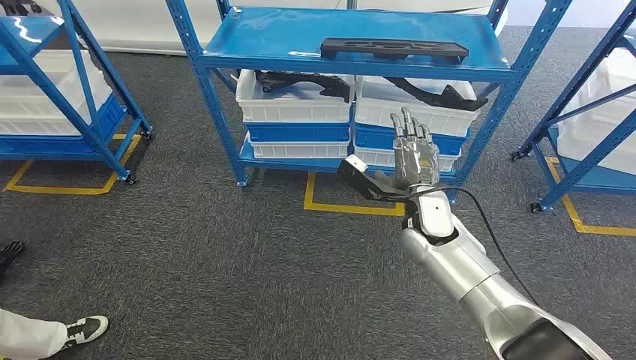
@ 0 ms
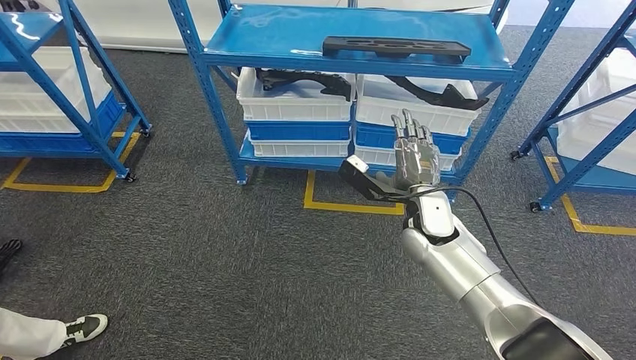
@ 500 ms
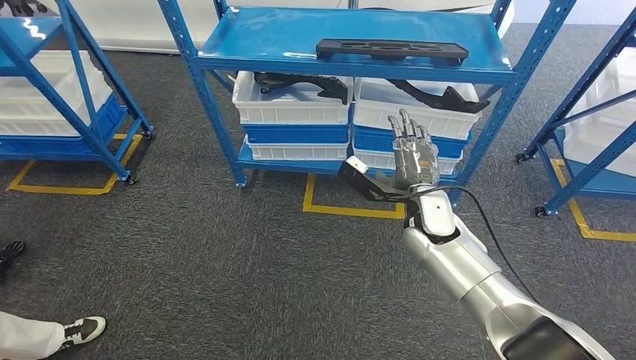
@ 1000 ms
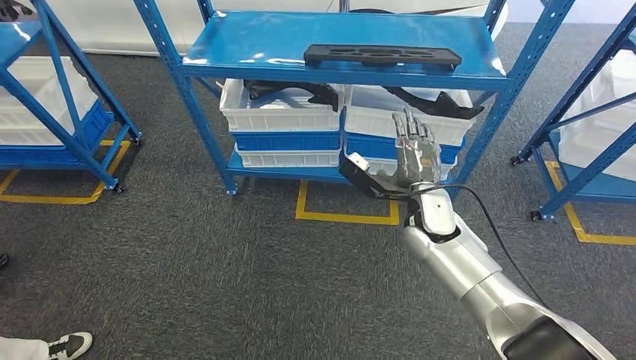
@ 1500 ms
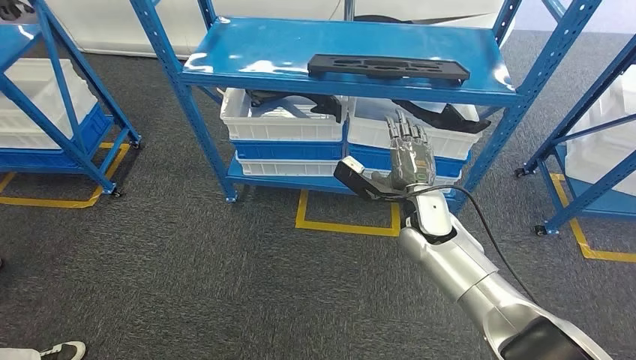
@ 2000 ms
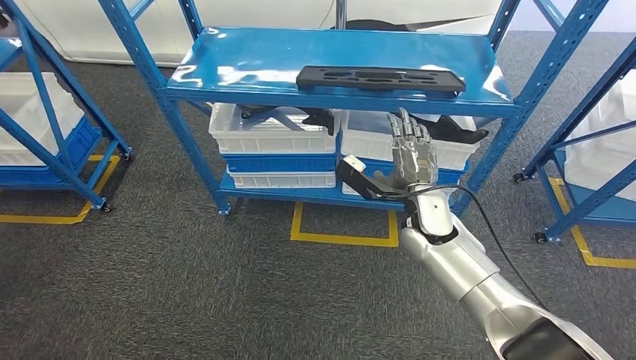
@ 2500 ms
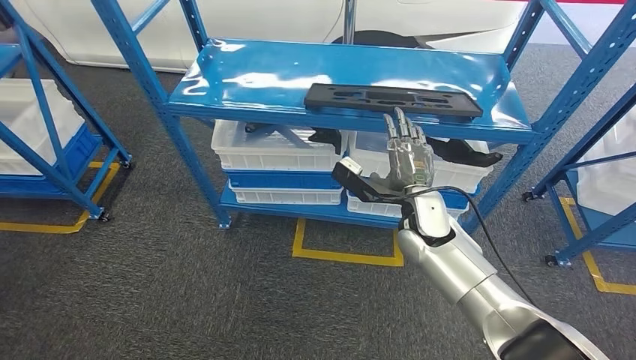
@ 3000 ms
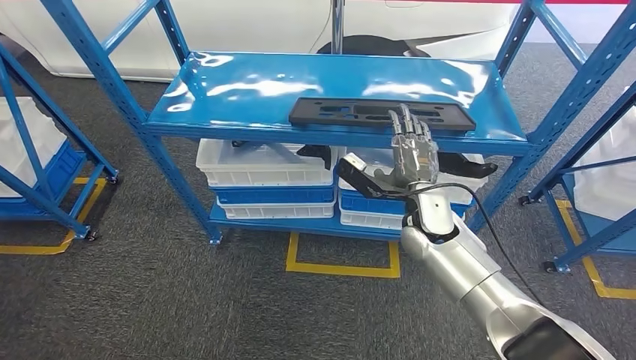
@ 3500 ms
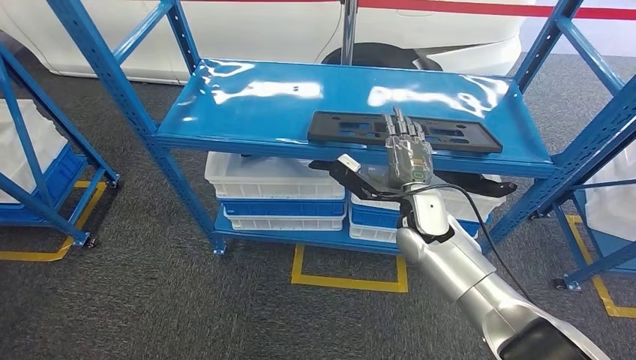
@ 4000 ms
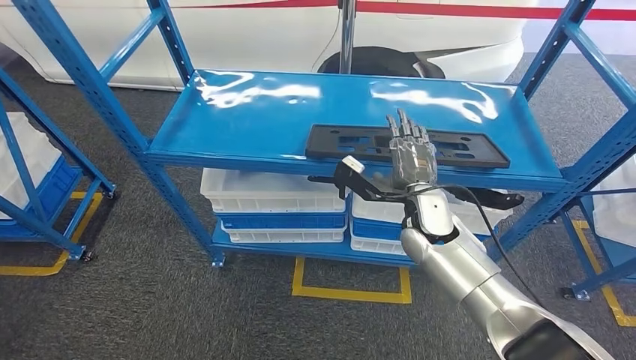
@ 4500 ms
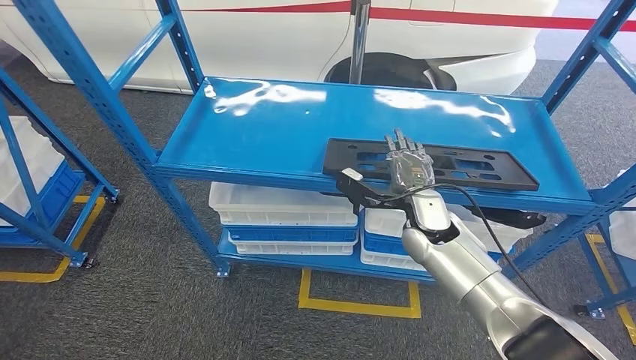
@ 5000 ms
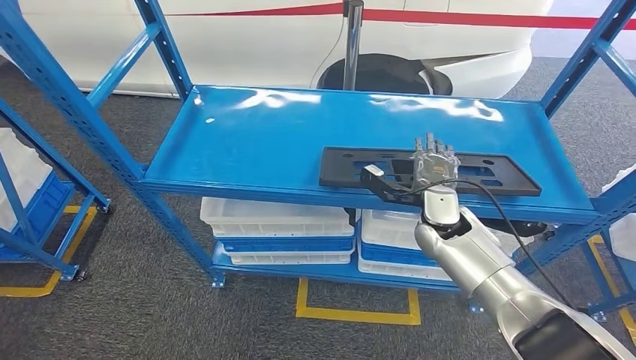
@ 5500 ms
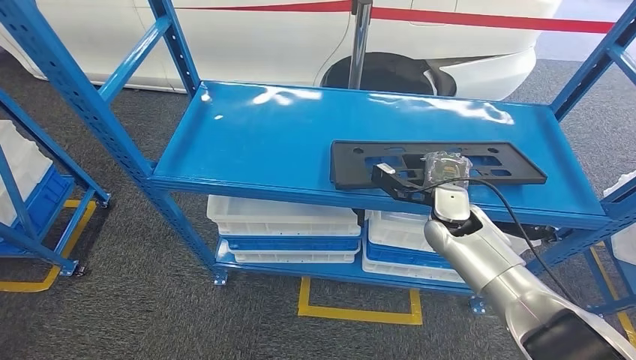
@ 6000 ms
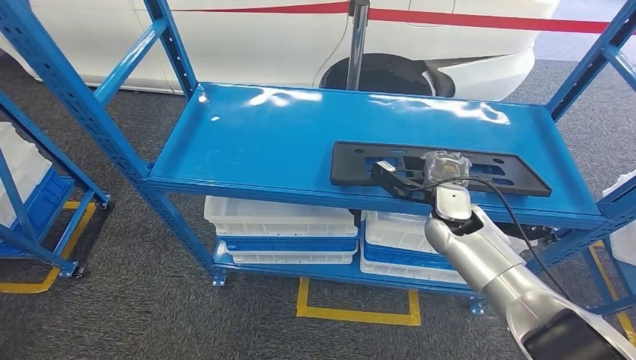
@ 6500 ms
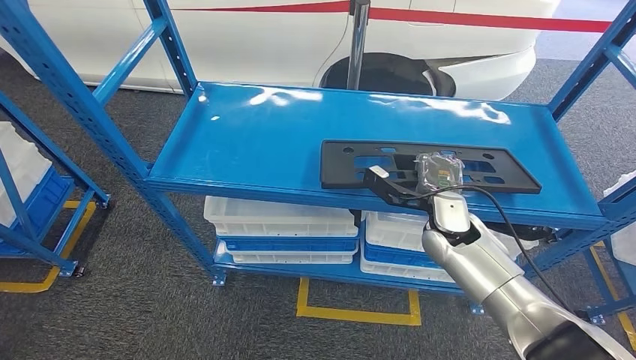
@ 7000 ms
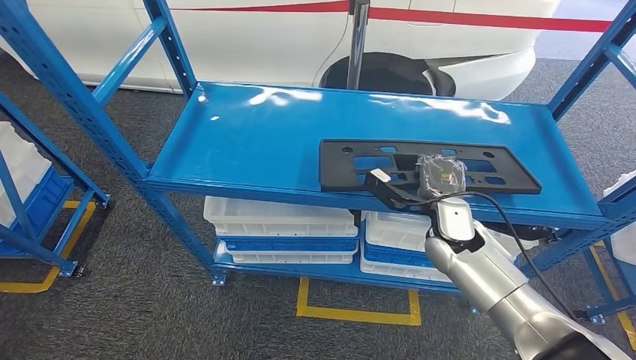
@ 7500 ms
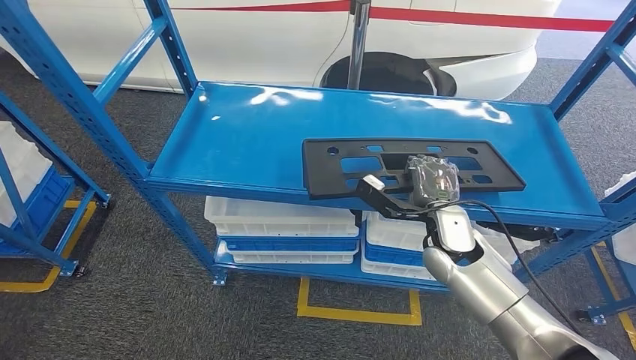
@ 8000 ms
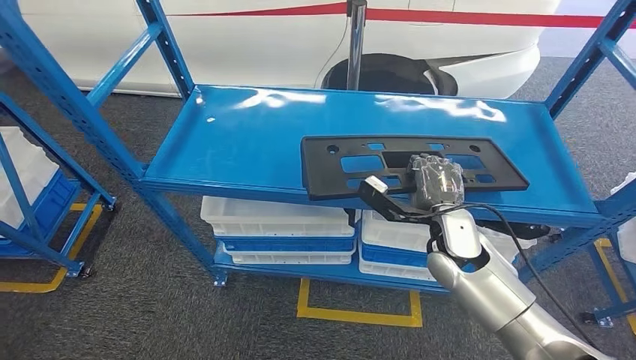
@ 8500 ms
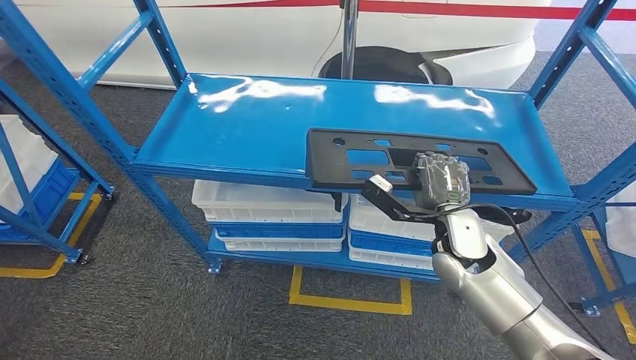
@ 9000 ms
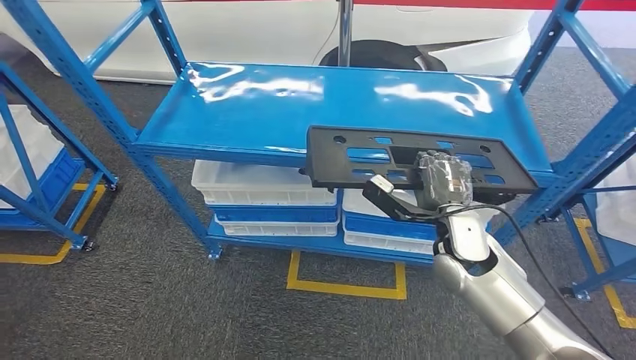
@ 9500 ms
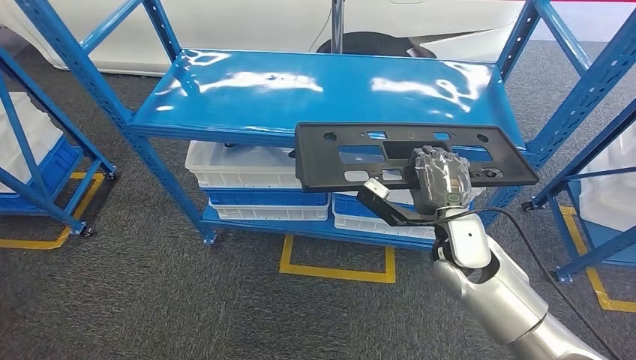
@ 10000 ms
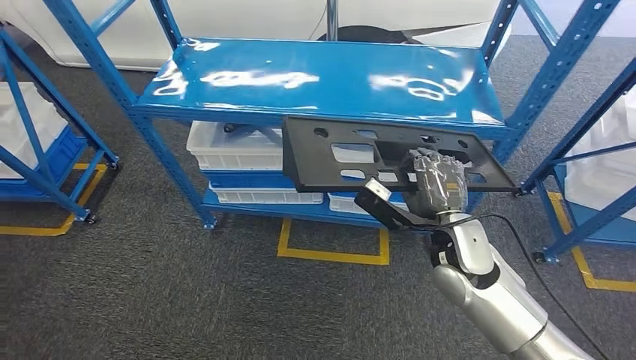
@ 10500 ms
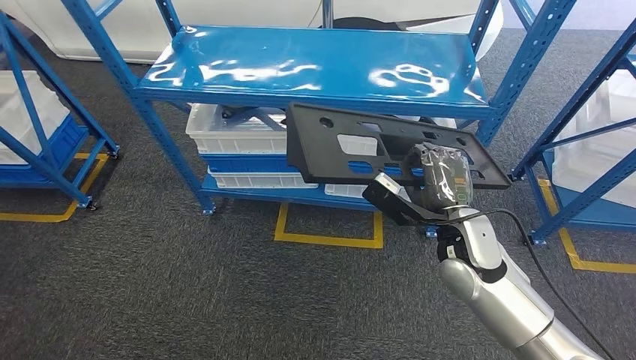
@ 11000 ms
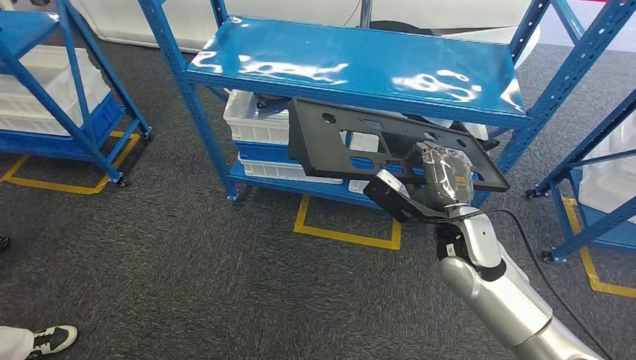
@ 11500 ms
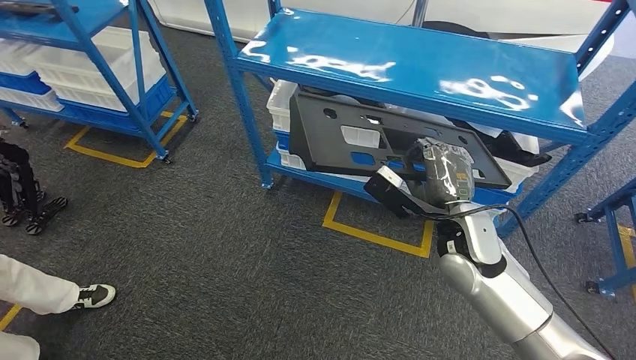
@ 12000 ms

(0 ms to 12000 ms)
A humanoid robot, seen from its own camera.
Step, 0 ms - 9500 ms: Pick up the large material from the shelf.

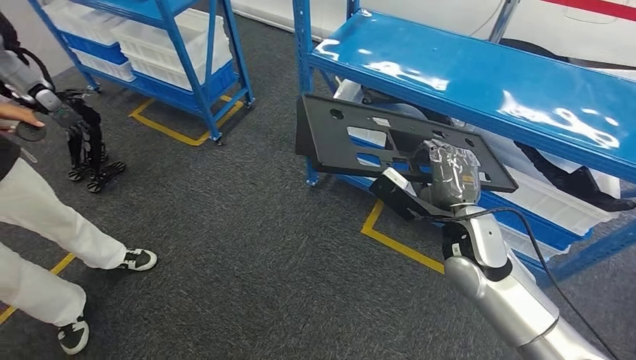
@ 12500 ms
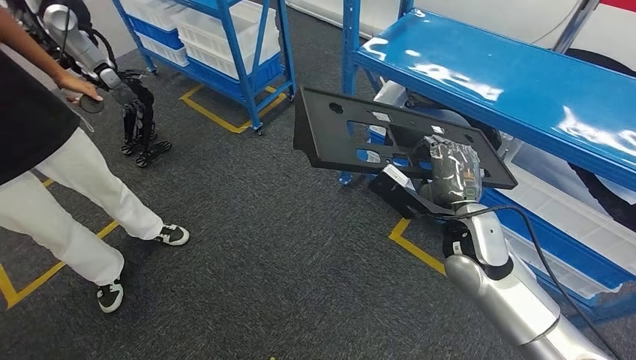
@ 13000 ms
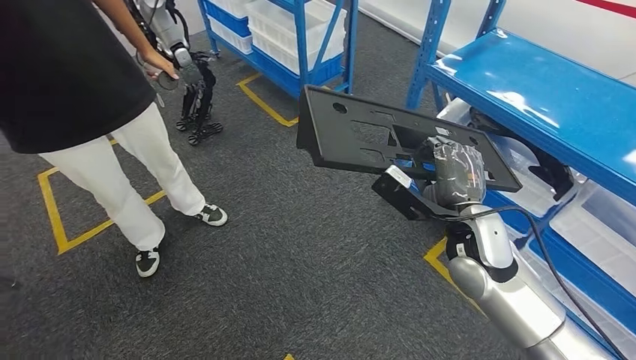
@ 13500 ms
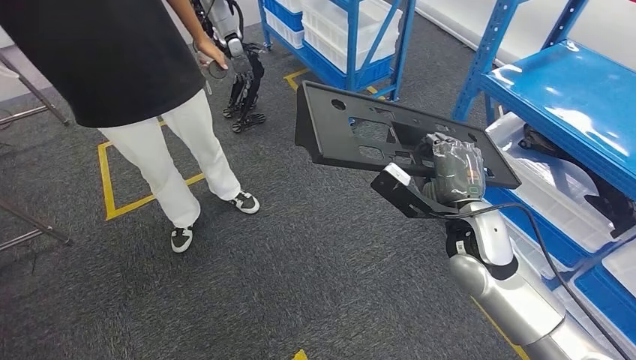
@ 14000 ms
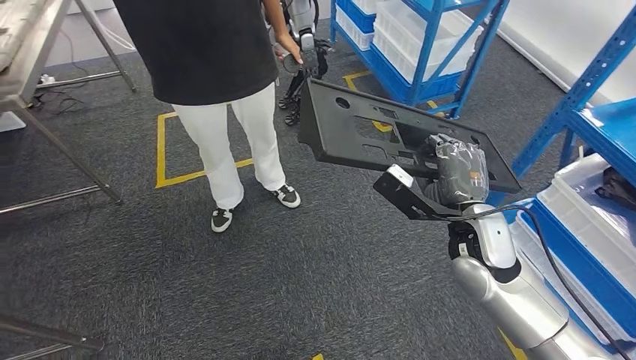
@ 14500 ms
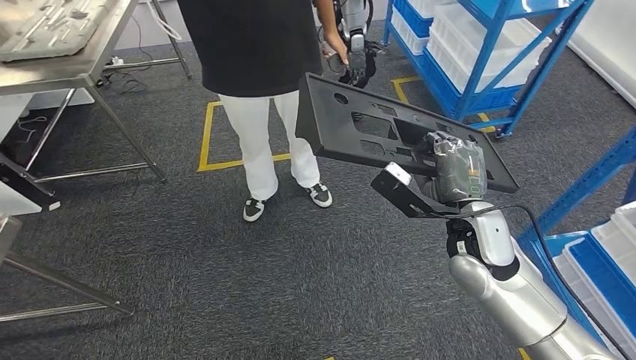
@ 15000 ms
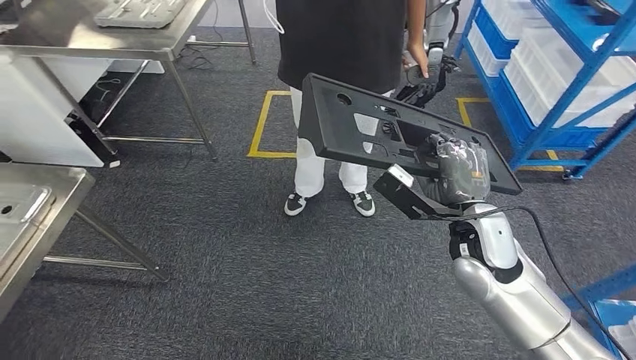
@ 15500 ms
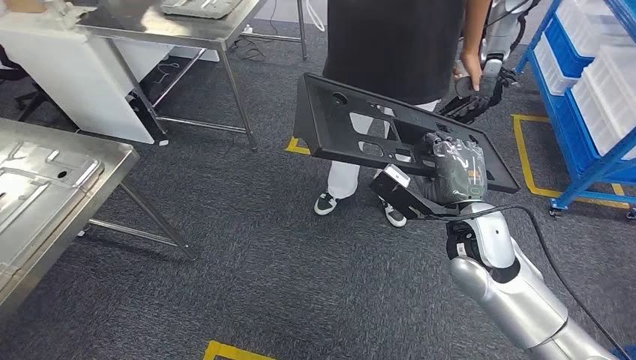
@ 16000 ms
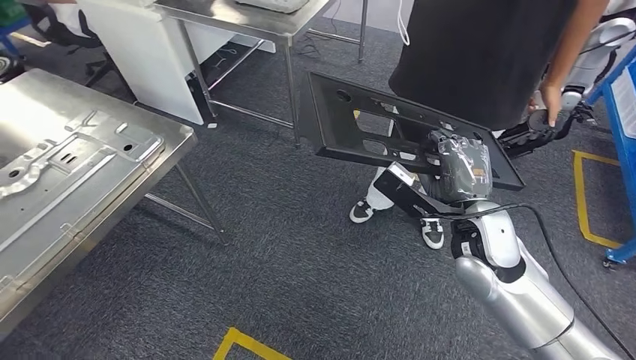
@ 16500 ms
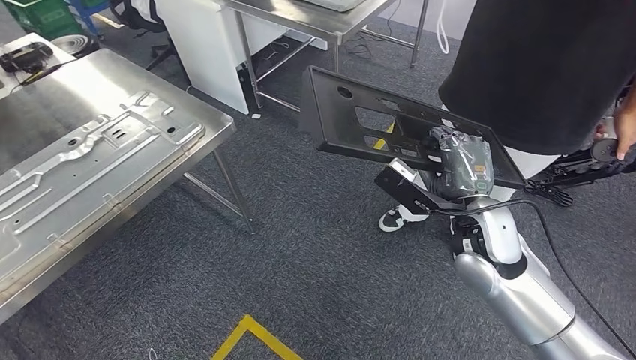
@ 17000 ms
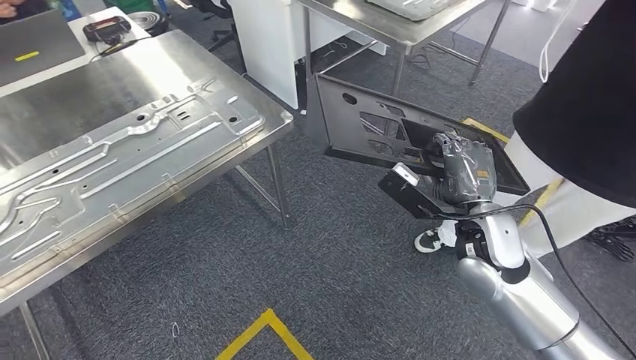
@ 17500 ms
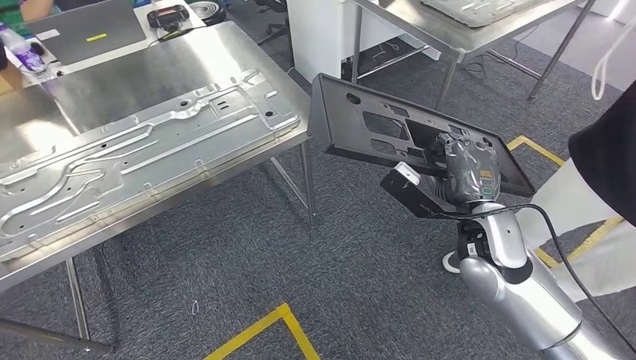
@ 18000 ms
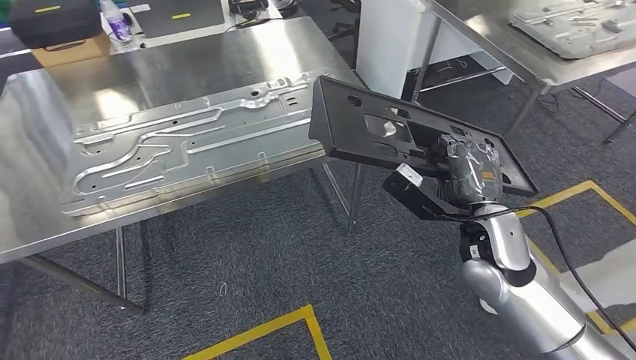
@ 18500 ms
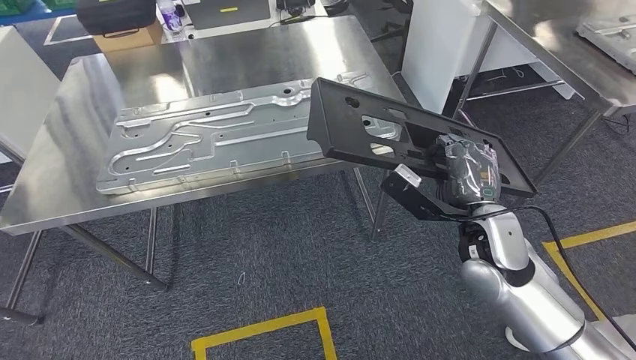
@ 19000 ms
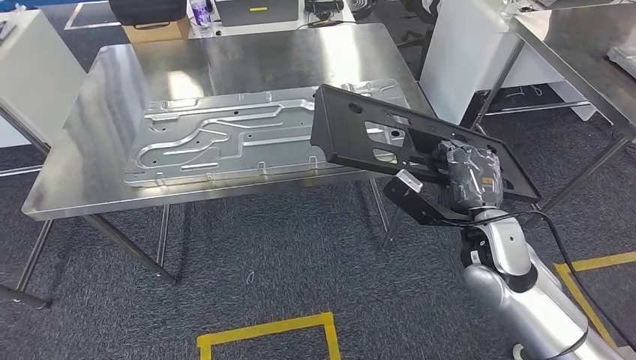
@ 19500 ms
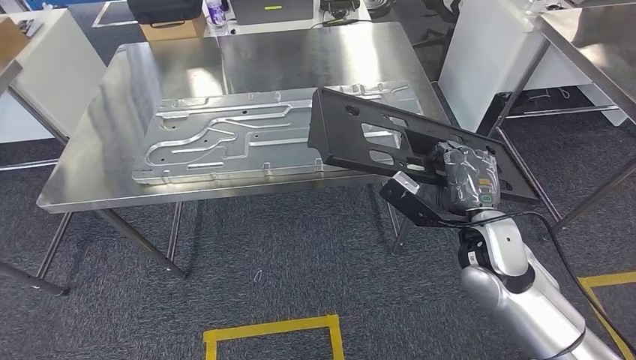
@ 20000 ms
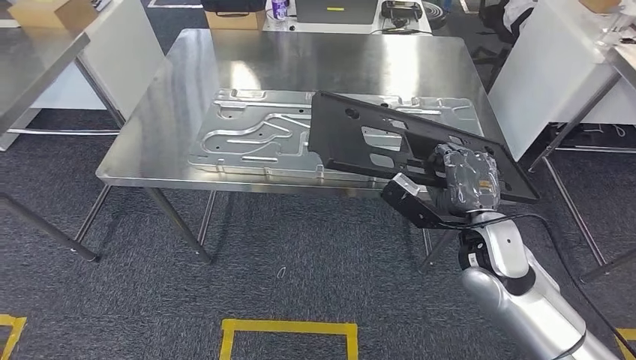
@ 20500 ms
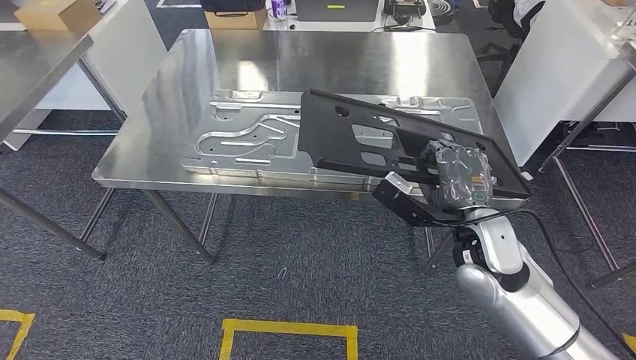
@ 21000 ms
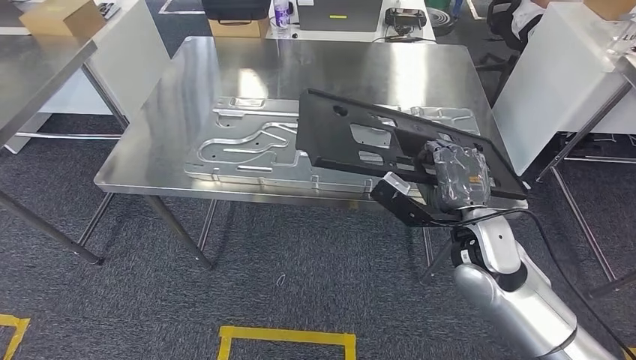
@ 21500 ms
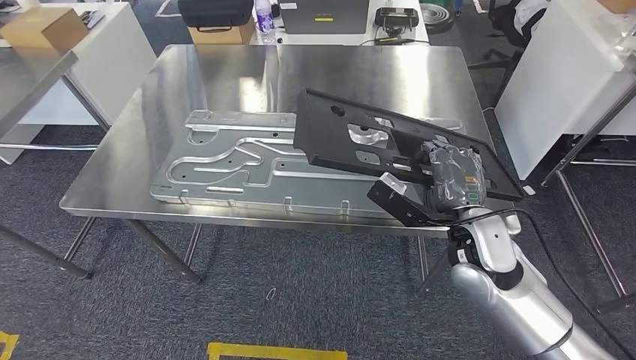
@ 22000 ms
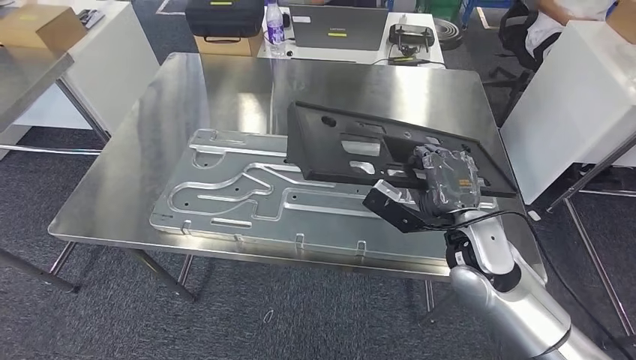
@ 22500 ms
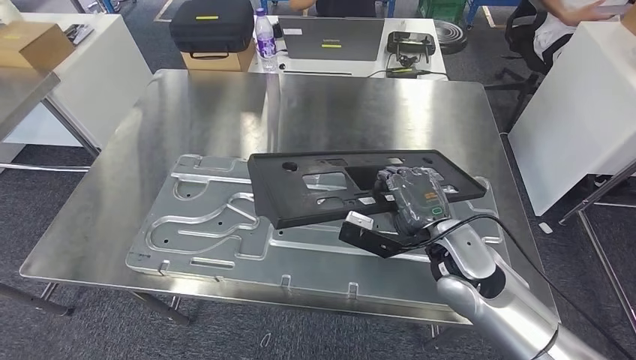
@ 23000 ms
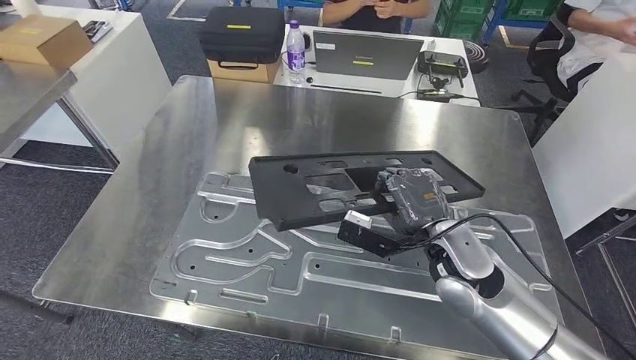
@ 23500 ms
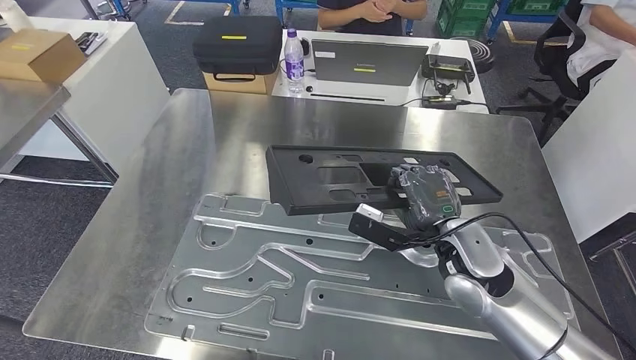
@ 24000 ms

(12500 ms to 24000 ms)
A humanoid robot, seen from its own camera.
Step, 13500 ms - 21500 ms: Move the large material to the workbench.